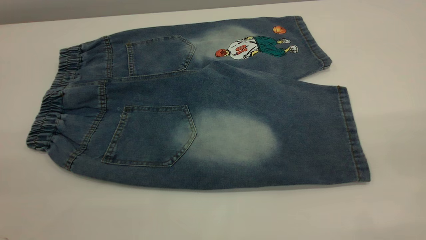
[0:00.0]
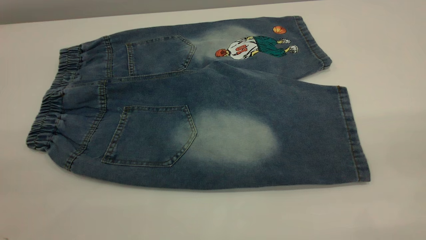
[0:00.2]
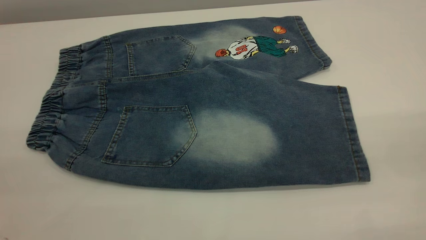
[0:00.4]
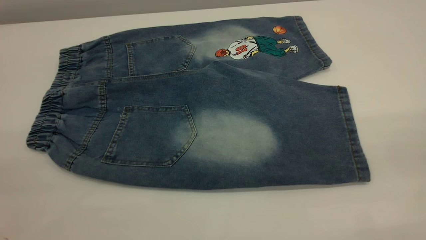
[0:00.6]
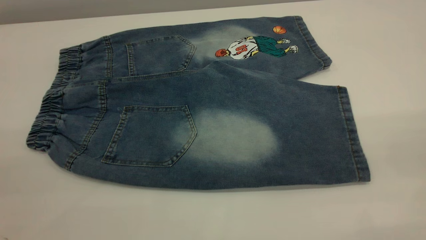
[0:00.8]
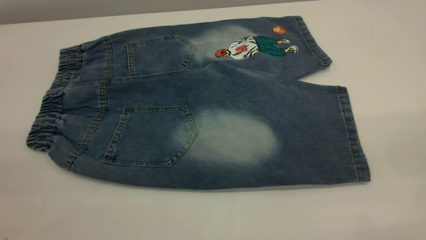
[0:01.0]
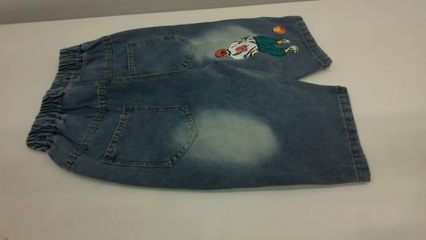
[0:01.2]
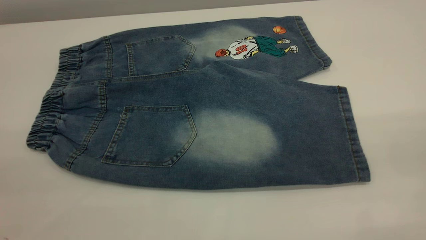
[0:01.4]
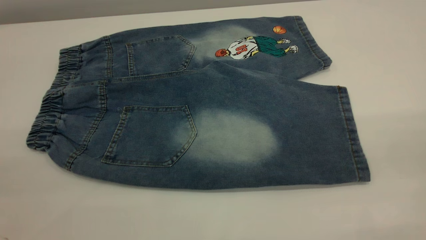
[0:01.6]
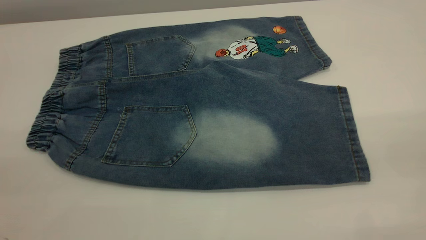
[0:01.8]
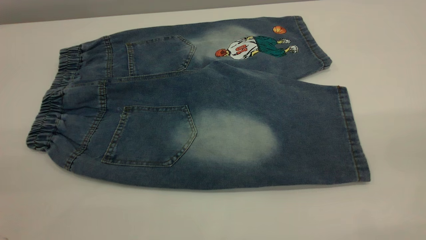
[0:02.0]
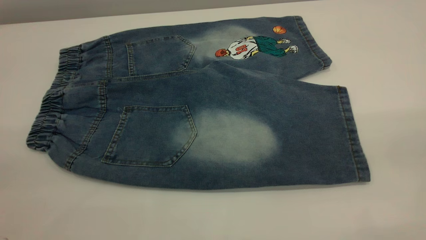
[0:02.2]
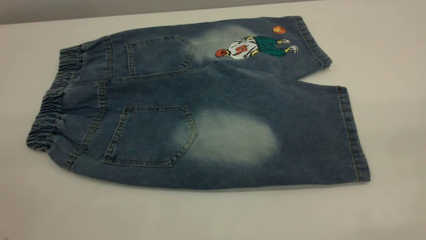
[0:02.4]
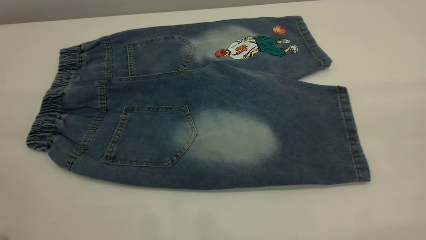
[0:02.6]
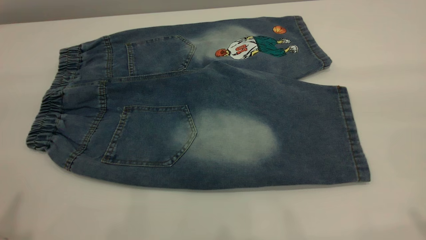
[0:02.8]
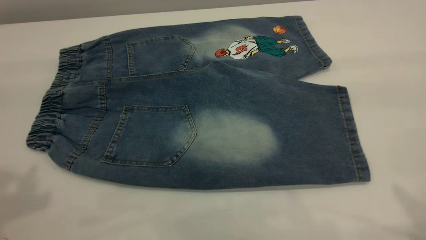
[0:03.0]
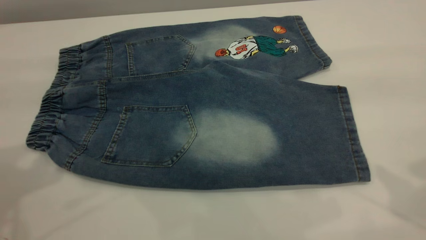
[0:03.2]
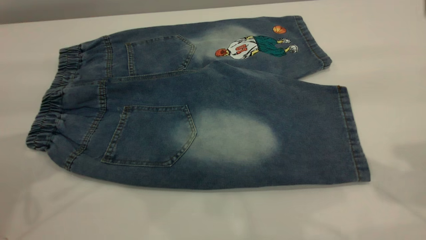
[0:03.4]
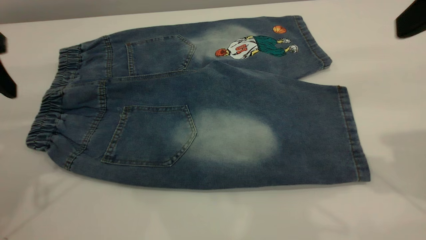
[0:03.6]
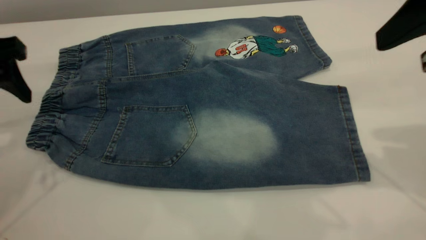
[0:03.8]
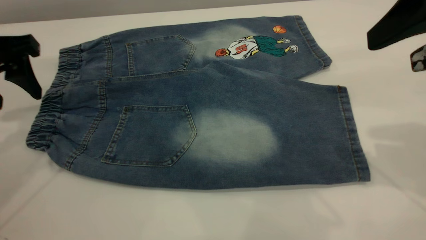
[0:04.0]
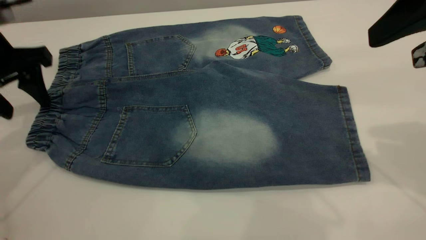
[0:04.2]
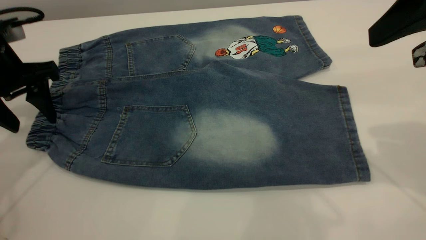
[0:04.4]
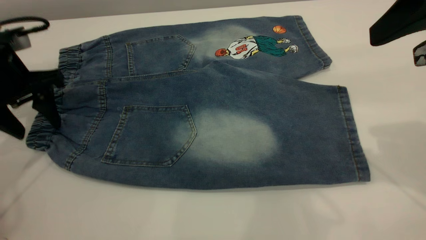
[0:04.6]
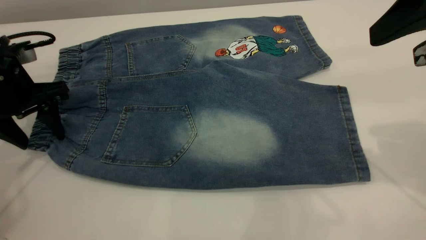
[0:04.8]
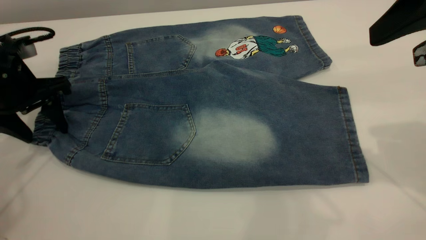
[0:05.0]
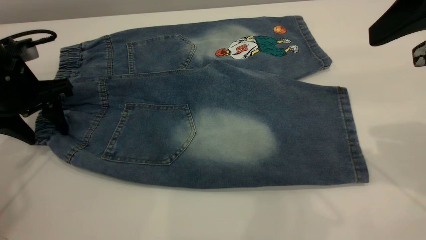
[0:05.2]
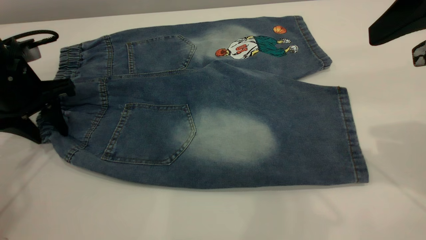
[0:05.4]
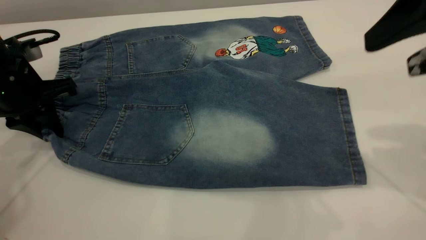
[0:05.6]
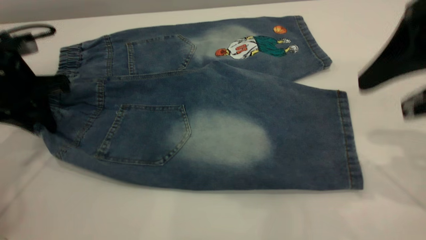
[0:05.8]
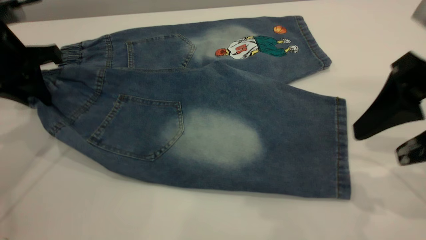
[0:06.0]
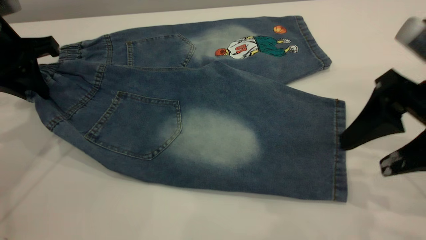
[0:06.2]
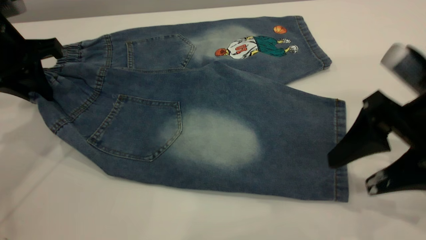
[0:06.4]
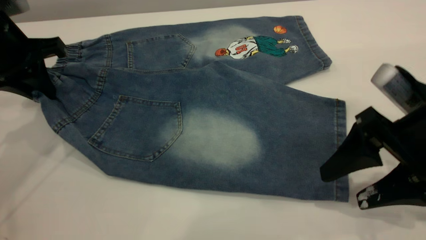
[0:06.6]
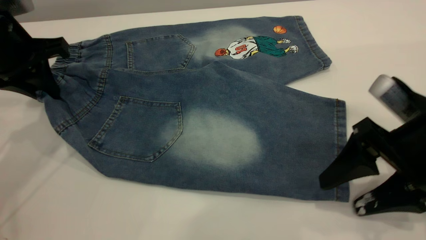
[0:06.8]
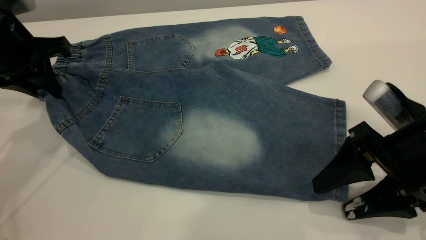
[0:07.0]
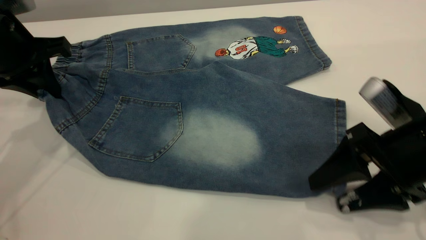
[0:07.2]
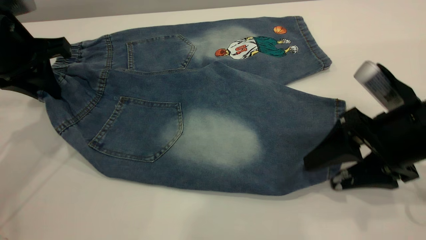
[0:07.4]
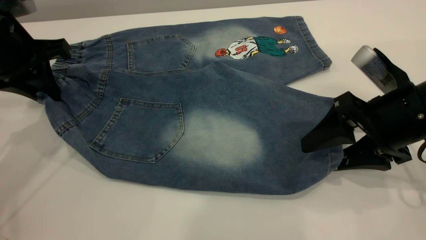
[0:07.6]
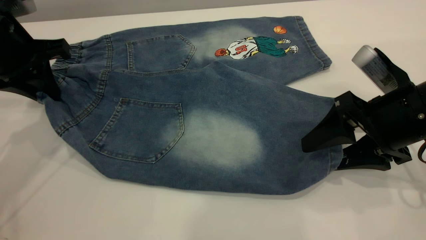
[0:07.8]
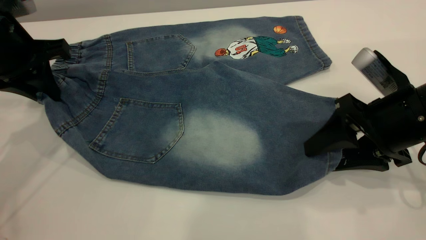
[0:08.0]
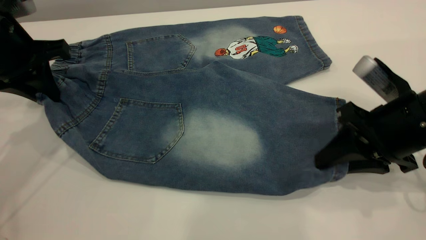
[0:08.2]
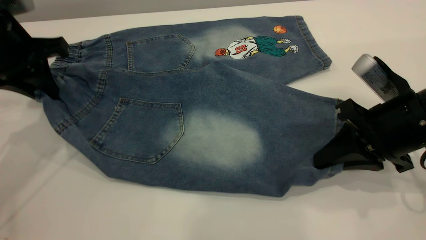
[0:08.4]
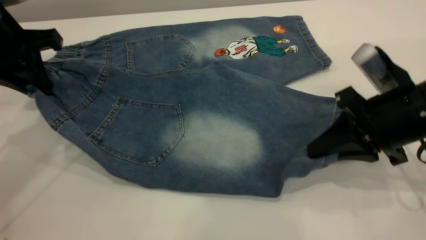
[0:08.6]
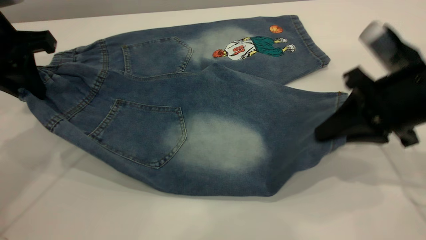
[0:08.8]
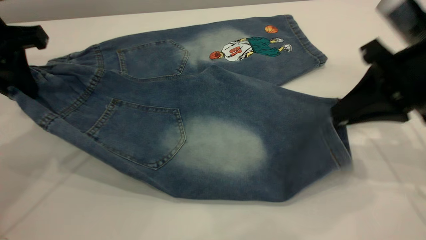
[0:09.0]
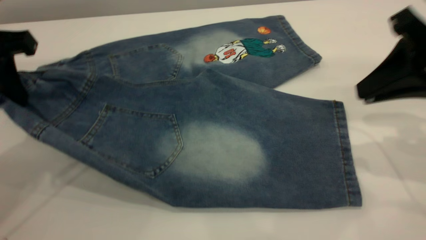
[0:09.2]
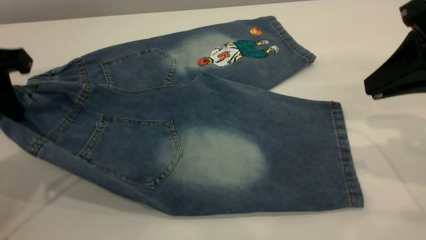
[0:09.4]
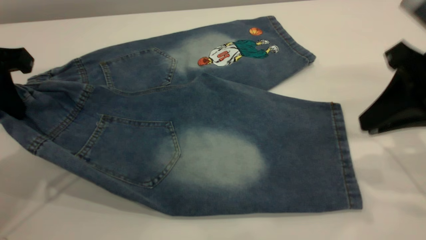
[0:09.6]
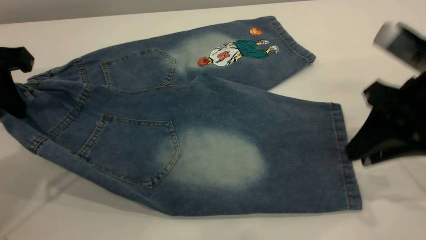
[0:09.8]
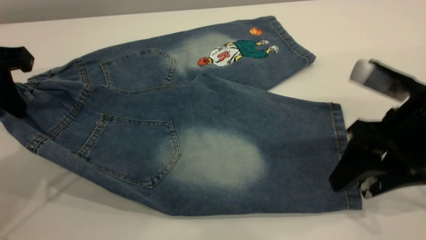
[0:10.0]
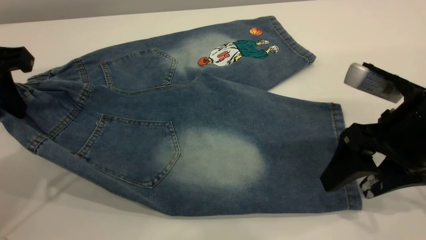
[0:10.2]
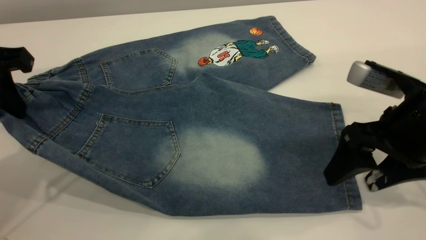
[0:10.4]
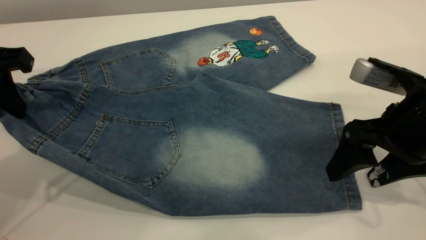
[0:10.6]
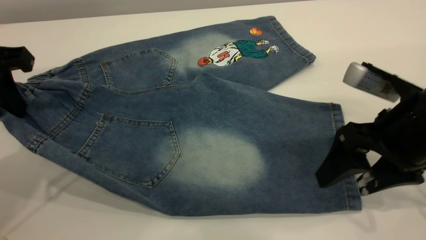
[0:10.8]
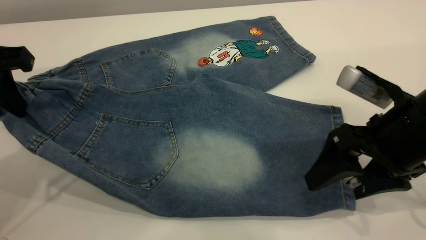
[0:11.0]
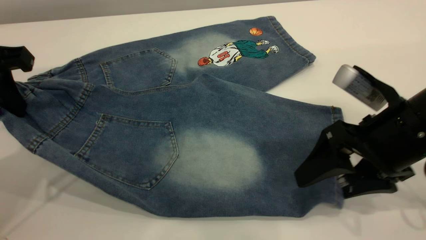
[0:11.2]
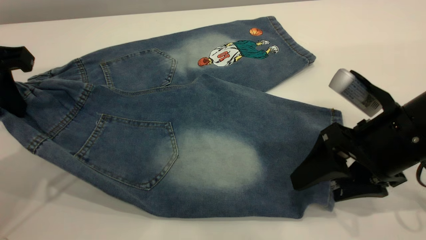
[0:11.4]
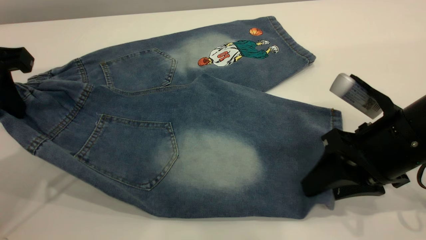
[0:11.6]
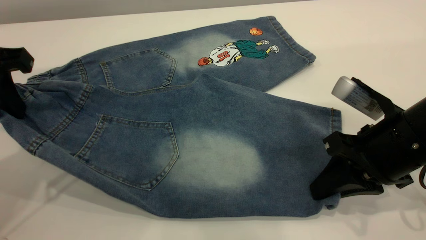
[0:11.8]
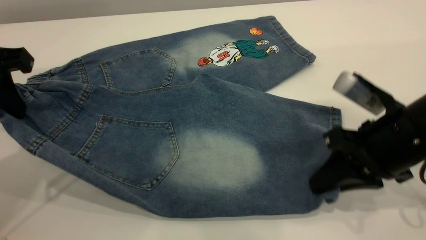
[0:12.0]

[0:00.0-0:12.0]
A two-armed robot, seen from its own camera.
0:00.0 to 0:01.6: The two grippers keep their place.
0:03.0 to 0:04.4: The right gripper moves forward and downward, some 15 cm. The left gripper heads downward and forward, covering some 25 cm.
0:04.4 to 0:06.0: The right gripper travels downward by roughly 10 cm. The left gripper closes its fingers.
0:06.0 to 0:07.6: The right gripper goes roughly 10 cm downward.
0:07.6 to 0:09.0: The left gripper shifts by about 5 cm. Meanwhile the right gripper moves upward, roughly 10 cm, and closes its fingers.
0:09.0 to 0:10.4: The right gripper is displaced downward by approximately 5 cm, and opens its fingers.
0:10.4 to 0:12.0: The right gripper closes up.

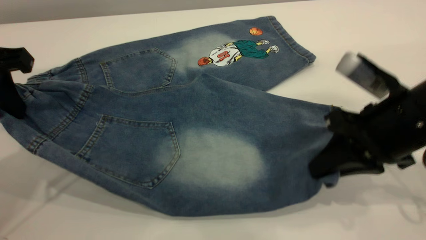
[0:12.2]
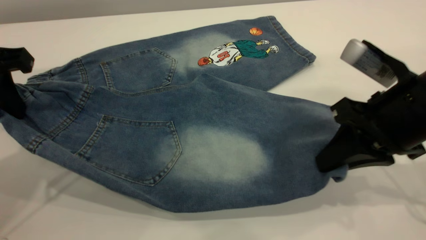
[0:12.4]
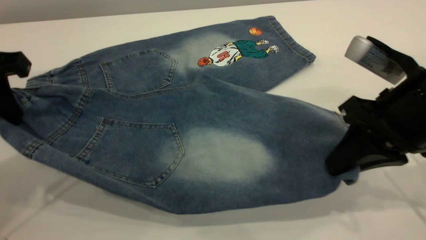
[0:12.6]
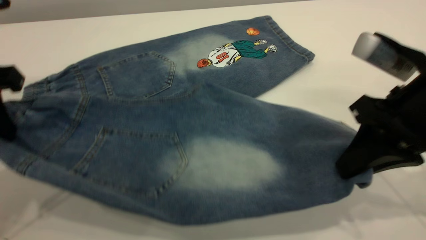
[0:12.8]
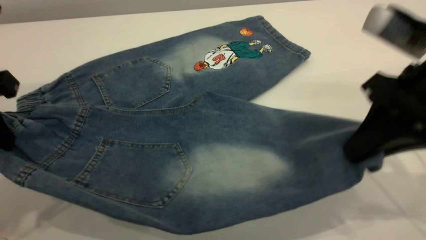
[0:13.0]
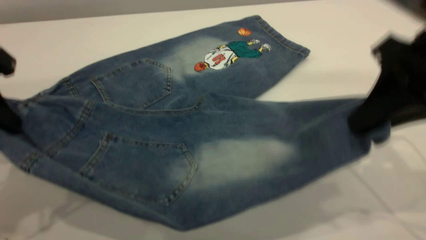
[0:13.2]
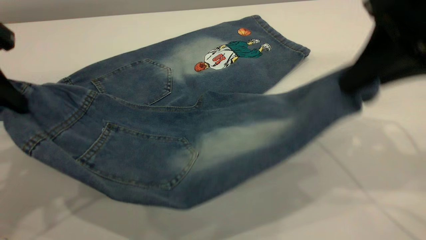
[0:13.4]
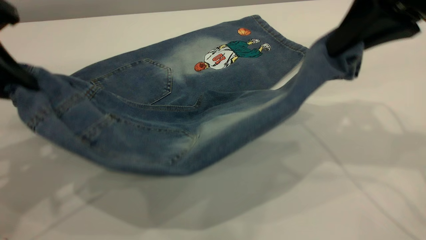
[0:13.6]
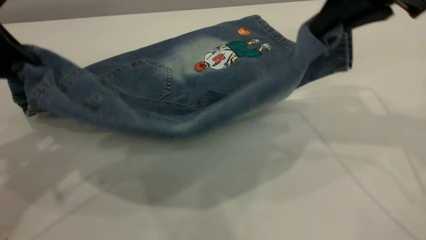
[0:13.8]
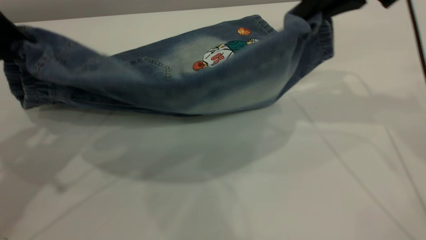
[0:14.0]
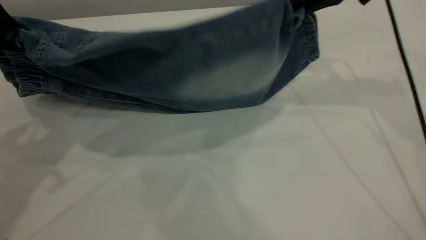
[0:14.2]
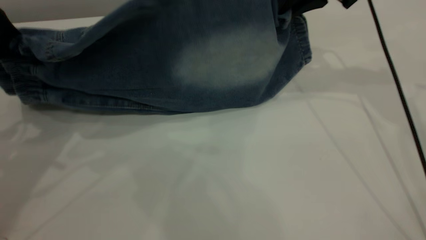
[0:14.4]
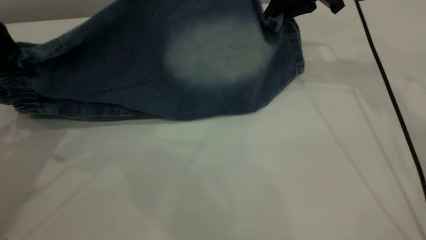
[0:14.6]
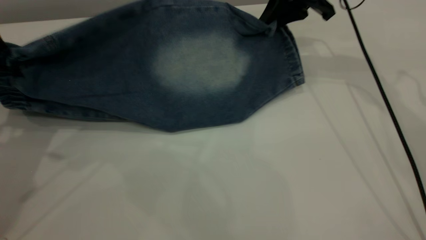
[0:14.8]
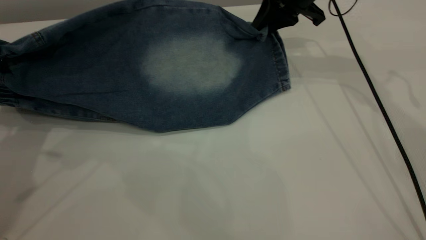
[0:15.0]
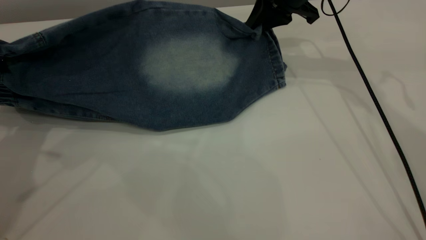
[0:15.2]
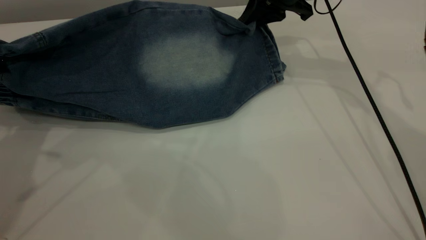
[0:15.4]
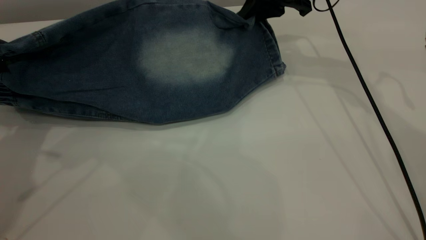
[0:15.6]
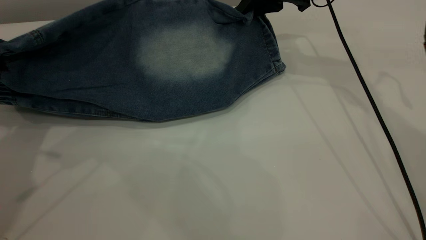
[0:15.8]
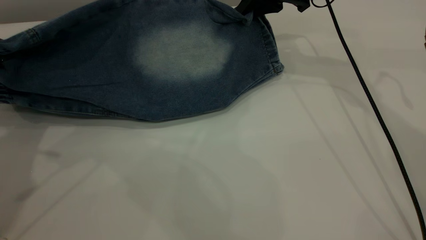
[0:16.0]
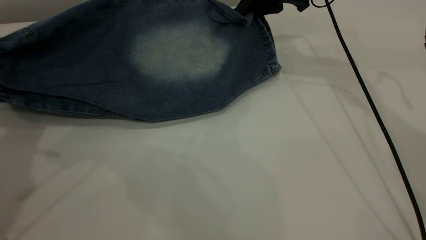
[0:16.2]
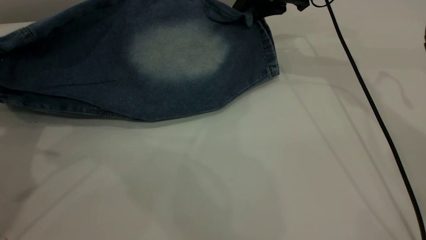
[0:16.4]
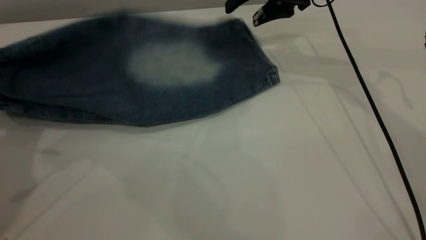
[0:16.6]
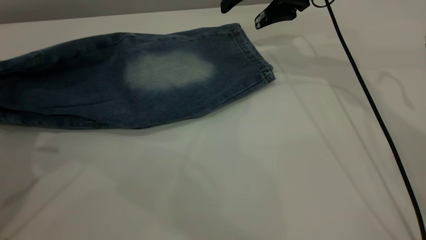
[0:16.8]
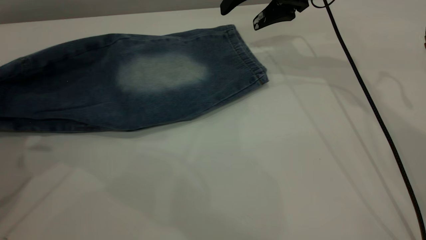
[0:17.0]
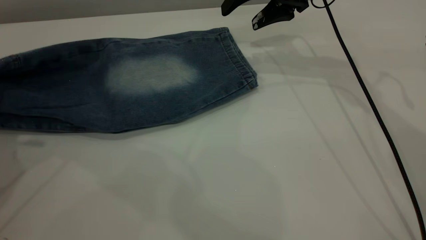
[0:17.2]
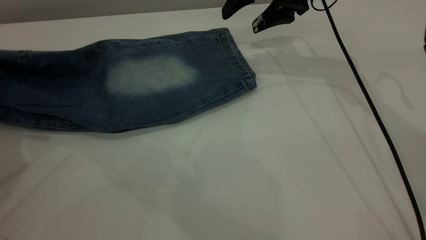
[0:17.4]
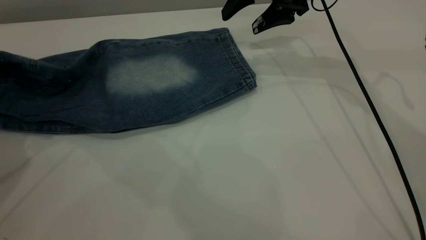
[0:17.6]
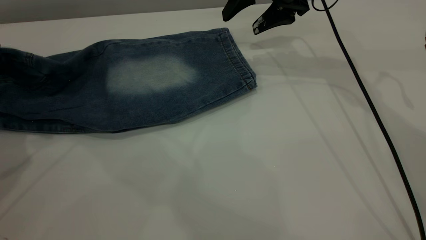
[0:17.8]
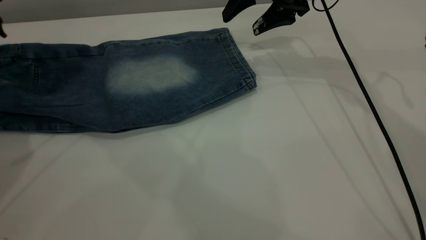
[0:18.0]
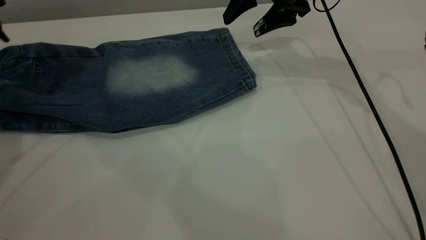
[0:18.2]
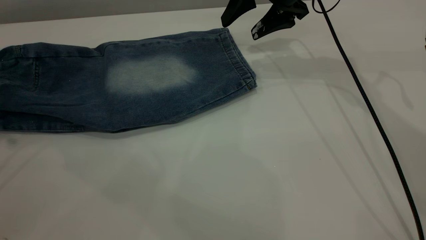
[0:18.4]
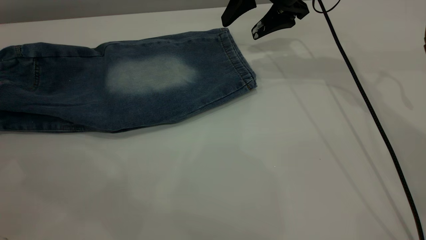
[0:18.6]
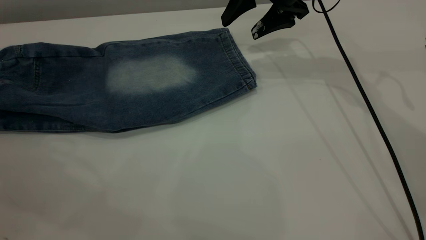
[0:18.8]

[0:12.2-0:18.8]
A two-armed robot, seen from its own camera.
Step, 0:12.2 to 0:18.4: Fold the bottom of the pants upward.
0:12.2 to 0:13.8: The right gripper heads upward and forward, covering about 15 cm.
0:13.8 to 0:15.4: The left gripper changes place by roughly 5 cm. The right gripper is displaced forward, downward and to the left by about 20 cm.
0:15.4 to 0:17.2: The right gripper opens its fingers.
0:17.2 to 0:18.8: The left gripper moves to the left, approximately 10 cm, and opens its fingers.
